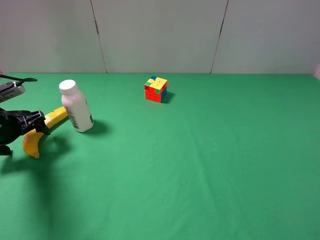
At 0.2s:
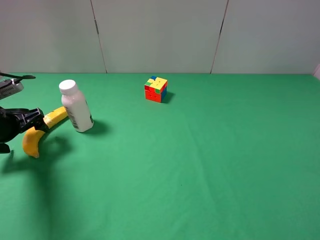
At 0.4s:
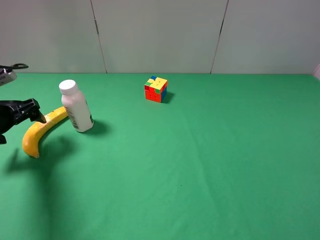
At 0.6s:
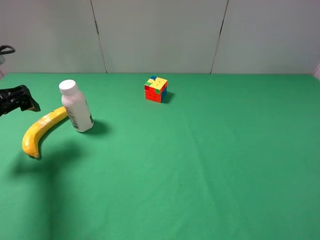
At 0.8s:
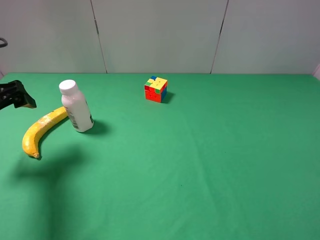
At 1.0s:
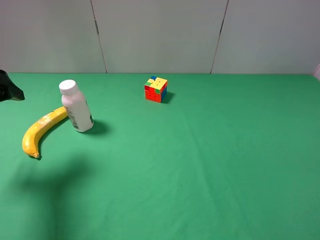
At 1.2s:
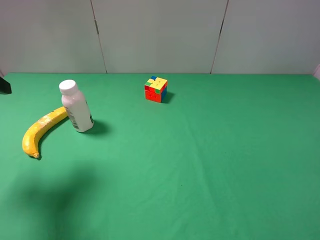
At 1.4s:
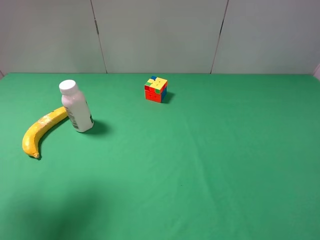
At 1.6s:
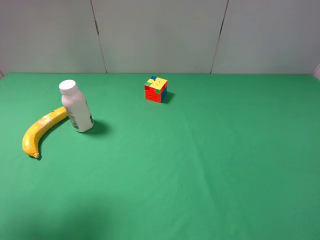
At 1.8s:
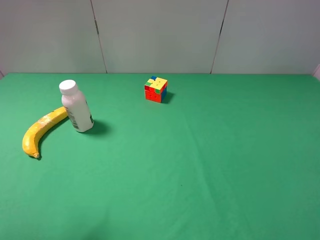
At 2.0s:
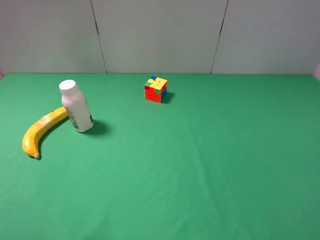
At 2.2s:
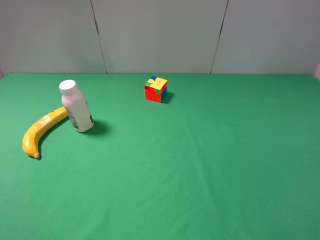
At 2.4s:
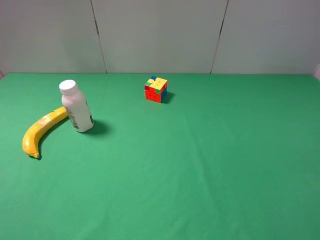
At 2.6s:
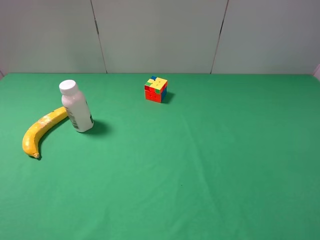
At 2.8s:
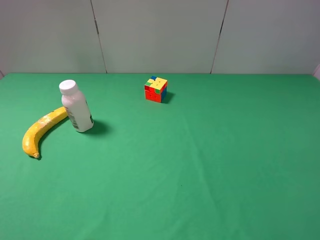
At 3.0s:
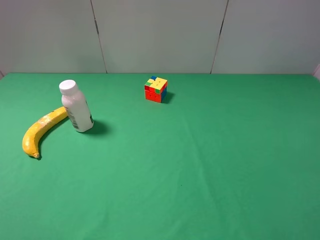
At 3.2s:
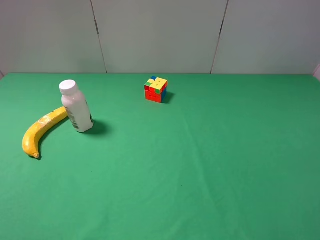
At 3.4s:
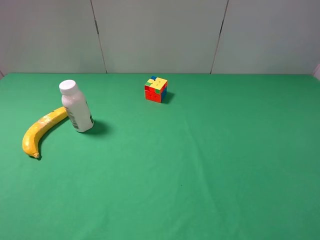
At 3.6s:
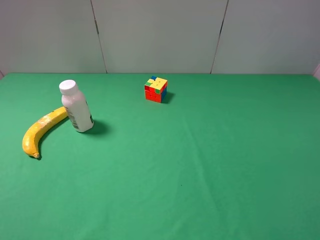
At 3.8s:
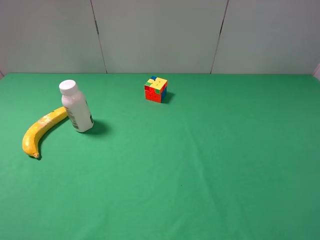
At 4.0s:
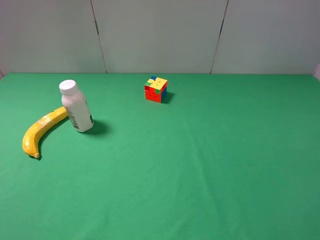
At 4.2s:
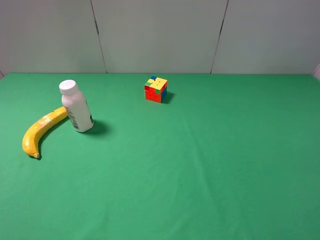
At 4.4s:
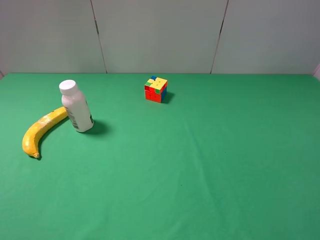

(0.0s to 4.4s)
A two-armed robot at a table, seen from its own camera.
Task of the whole recording: use the right gripper to pick up the item and transfer it from the right gripper to the left gripper.
0.0s - 1.4s: The left gripper shifts some 25 cm upward and backward.
1.4s - 3.0s: The left gripper goes some 15 cm backward.

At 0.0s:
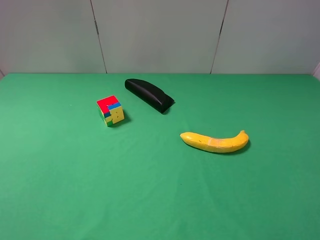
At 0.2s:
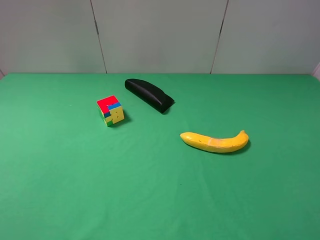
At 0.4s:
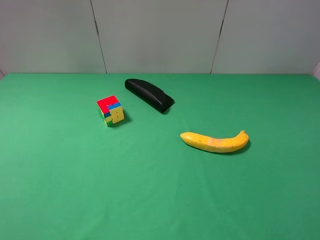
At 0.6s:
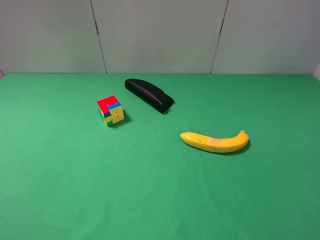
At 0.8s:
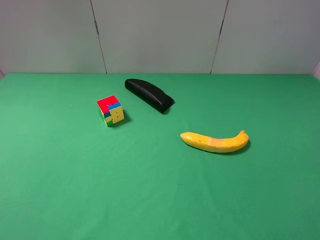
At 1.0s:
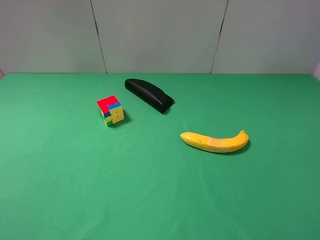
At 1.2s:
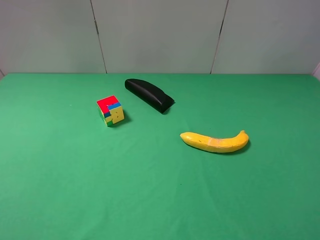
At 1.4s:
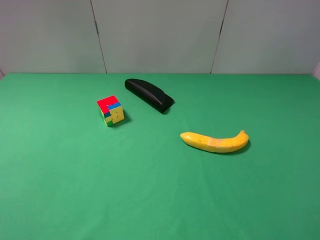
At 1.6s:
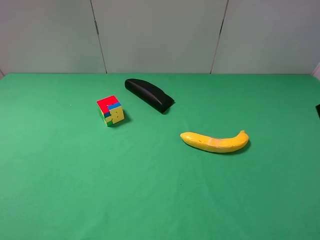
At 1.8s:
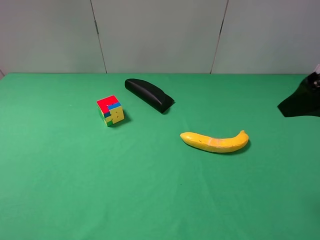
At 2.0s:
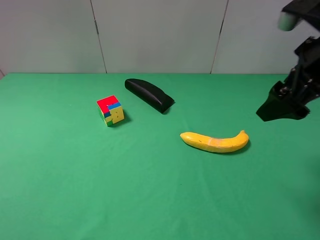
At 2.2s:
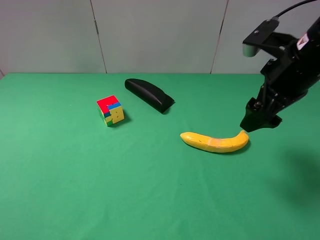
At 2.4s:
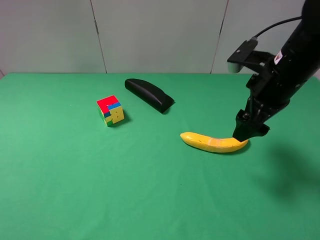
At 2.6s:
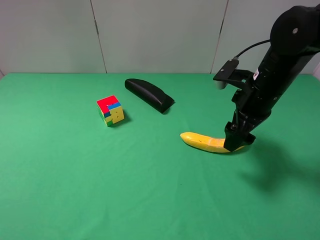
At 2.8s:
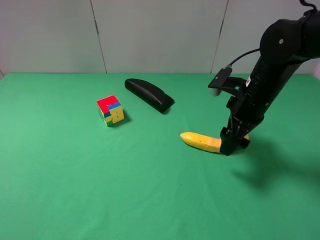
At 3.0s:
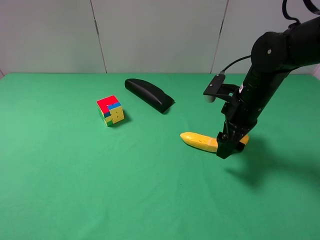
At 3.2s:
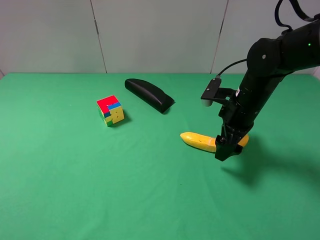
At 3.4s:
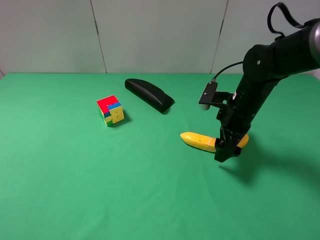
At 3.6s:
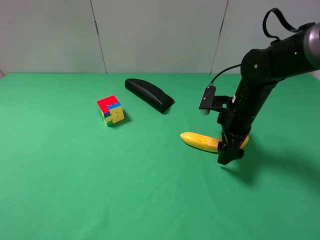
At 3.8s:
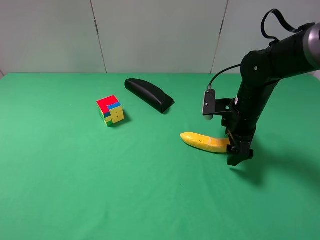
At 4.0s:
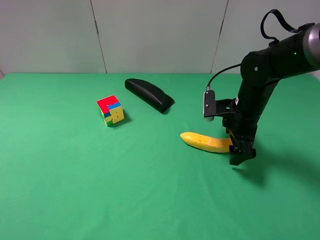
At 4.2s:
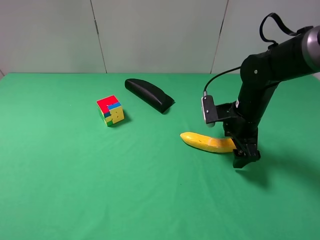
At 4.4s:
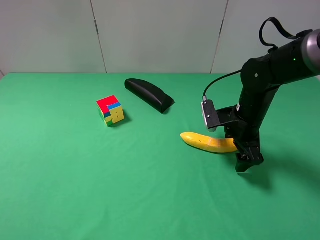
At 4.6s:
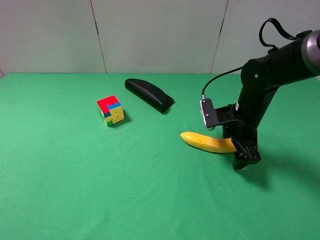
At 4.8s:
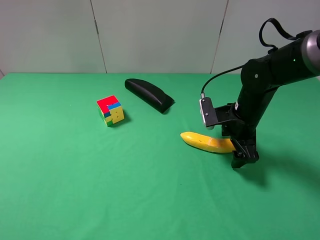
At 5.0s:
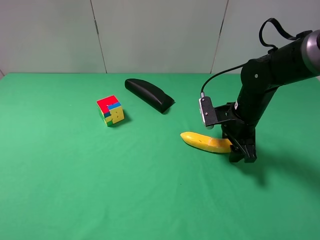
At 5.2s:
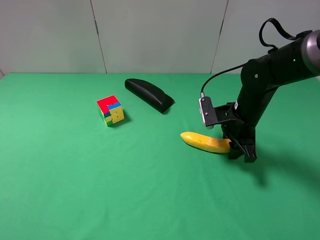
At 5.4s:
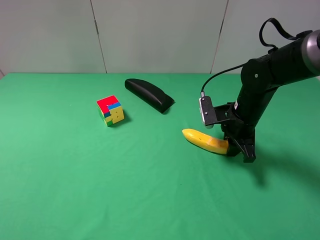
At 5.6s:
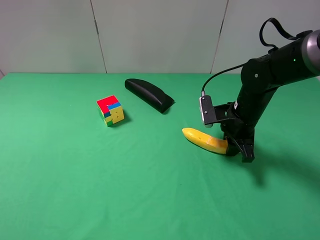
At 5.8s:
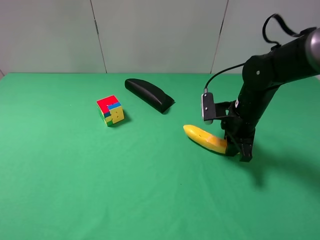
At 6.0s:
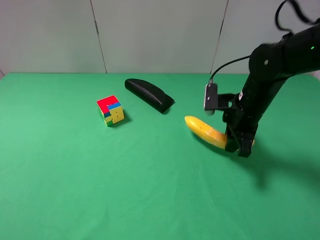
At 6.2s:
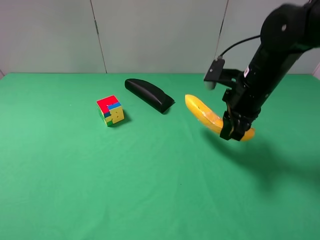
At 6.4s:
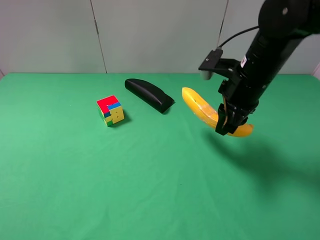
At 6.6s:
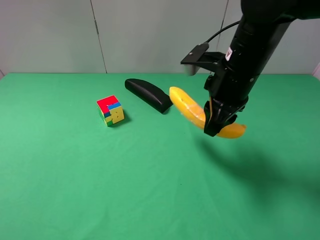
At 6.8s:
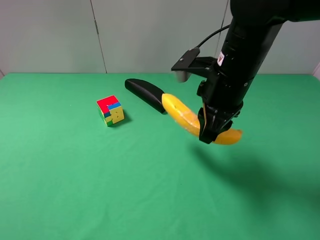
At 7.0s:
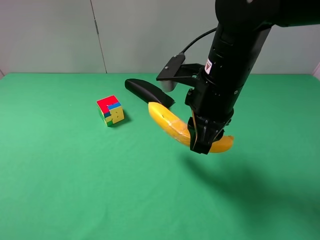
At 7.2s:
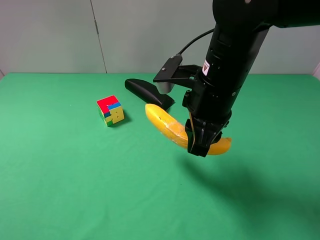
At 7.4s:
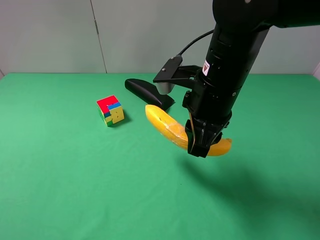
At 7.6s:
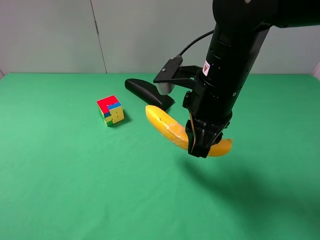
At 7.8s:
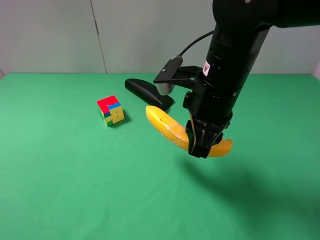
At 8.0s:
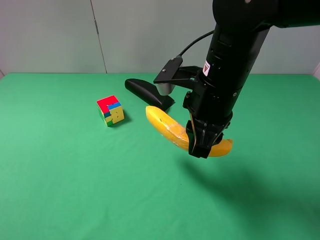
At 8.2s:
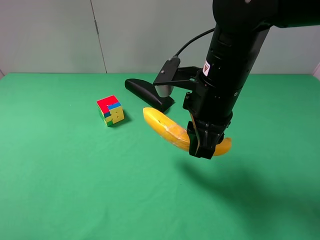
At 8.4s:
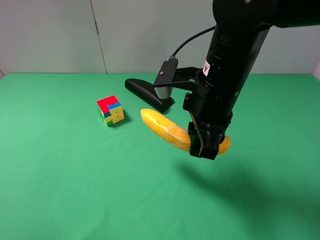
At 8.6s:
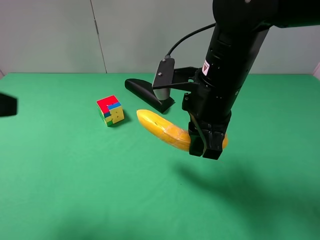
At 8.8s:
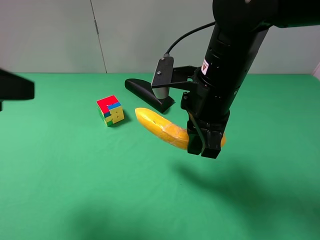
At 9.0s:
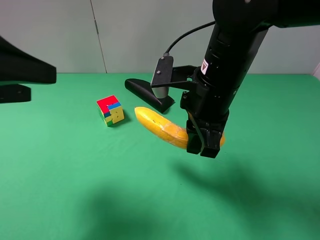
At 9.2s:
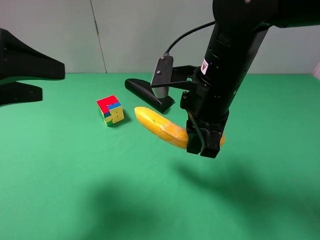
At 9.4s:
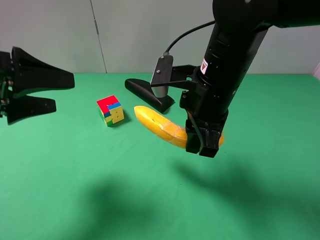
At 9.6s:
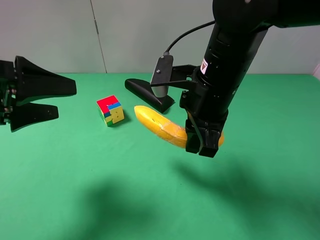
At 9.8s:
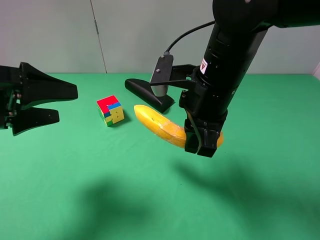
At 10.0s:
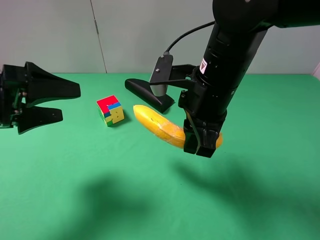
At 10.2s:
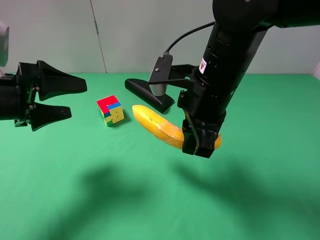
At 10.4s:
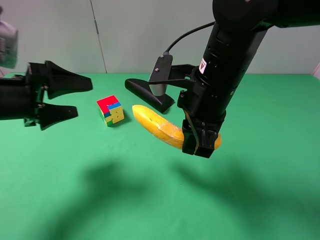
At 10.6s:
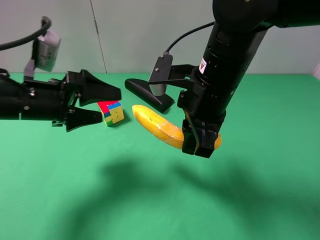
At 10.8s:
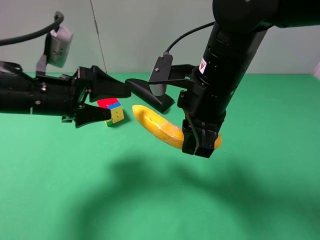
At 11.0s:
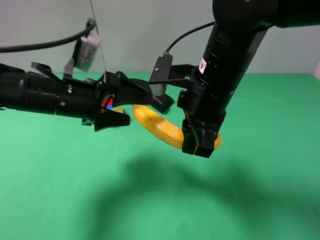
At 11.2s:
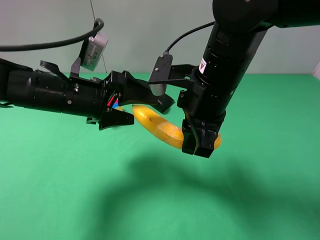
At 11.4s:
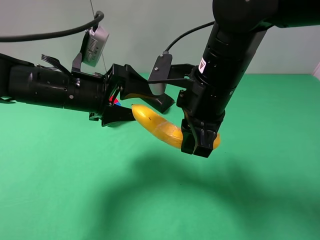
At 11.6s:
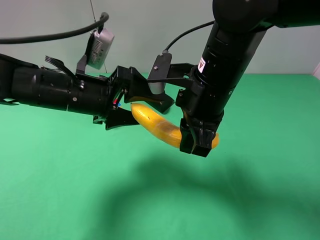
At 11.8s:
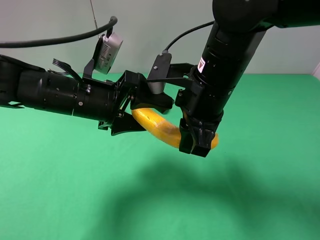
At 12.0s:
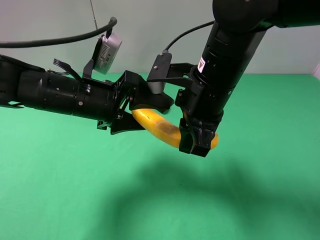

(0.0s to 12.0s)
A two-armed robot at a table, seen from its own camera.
Task of the whole recording: use the right gripper to pick up the item and transfer it from the right gripper to the left gripper.
1.6s - 3.0s: The right gripper shifts roughly 25 cm downward, forward and to the left.
4.4s - 6.0s: The right gripper closes.
6.0s - 7.6s: The right gripper is displaced to the left, upward and backward by approximately 15 cm.
7.6s - 9.0s: The left gripper heads forward, covering approximately 15 cm.
9.0s - 10.4s: The left gripper shifts roughly 10 cm downward.
10.4s - 12.0s: The left gripper is displaced to the right by approximately 10 cm.

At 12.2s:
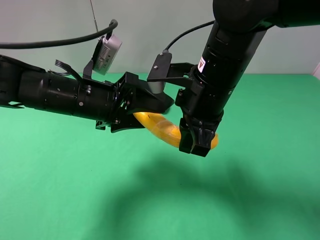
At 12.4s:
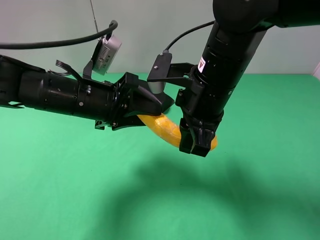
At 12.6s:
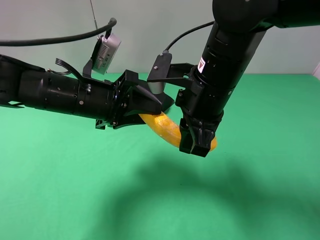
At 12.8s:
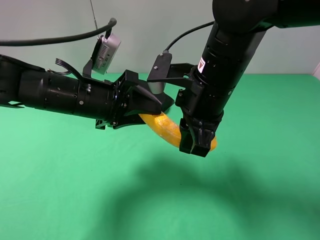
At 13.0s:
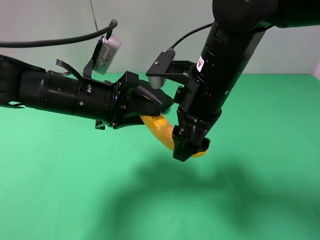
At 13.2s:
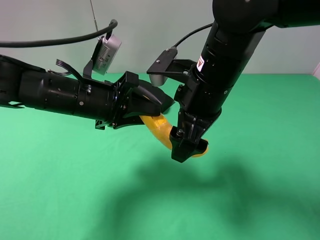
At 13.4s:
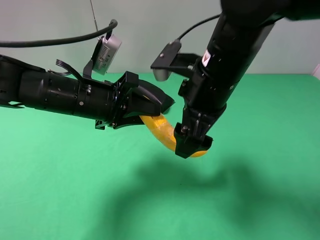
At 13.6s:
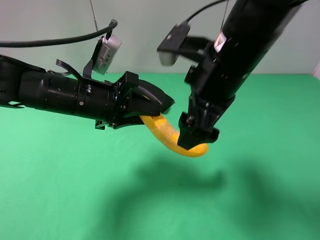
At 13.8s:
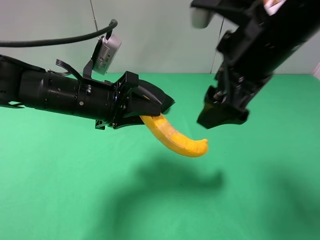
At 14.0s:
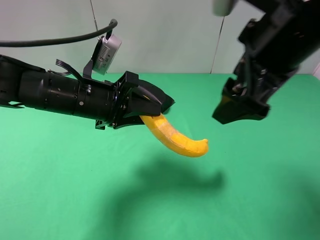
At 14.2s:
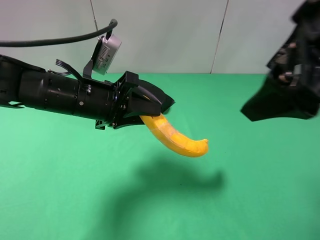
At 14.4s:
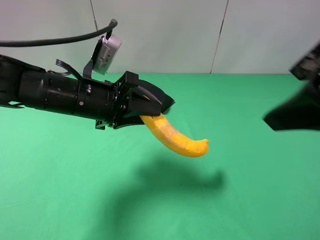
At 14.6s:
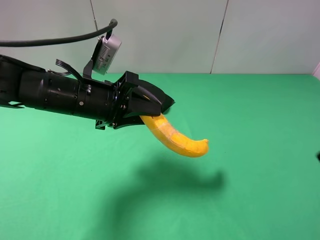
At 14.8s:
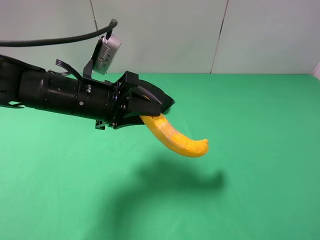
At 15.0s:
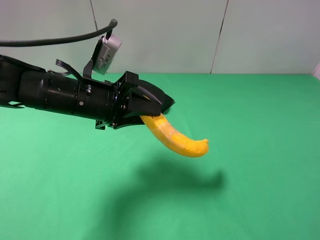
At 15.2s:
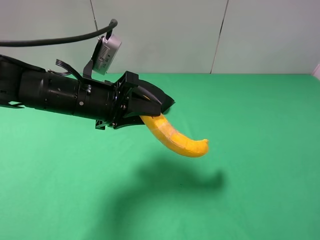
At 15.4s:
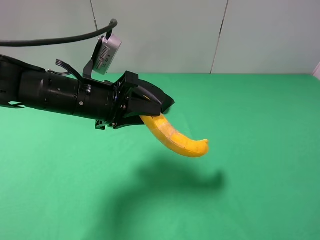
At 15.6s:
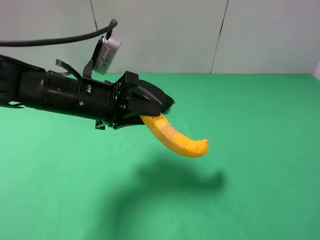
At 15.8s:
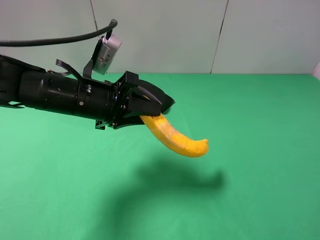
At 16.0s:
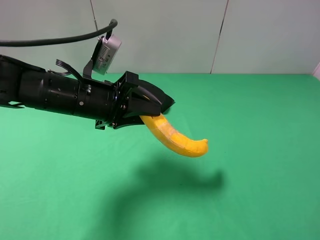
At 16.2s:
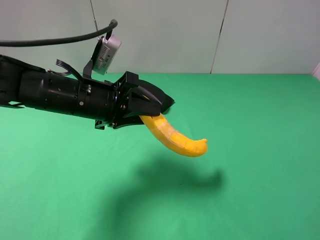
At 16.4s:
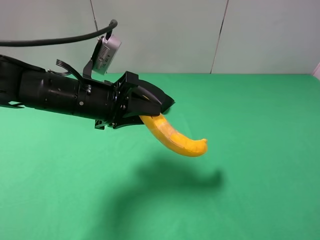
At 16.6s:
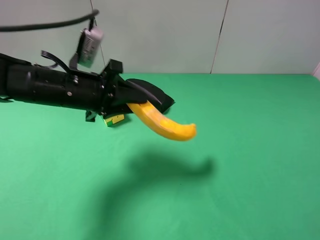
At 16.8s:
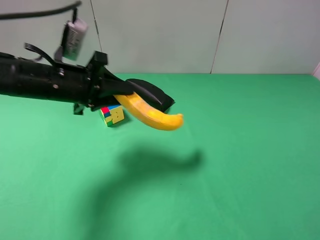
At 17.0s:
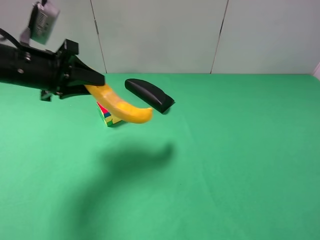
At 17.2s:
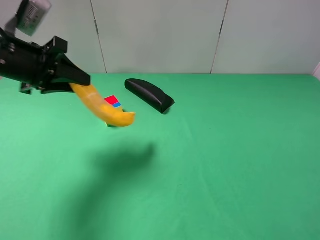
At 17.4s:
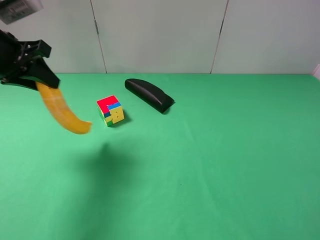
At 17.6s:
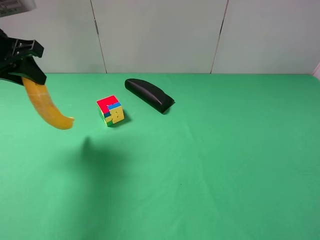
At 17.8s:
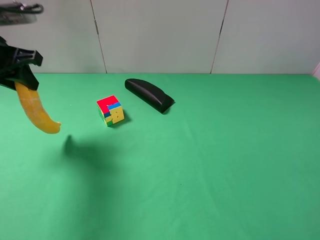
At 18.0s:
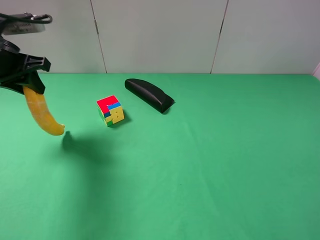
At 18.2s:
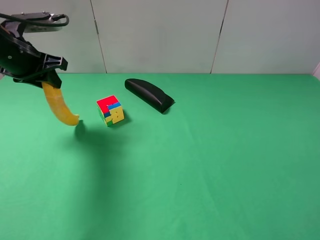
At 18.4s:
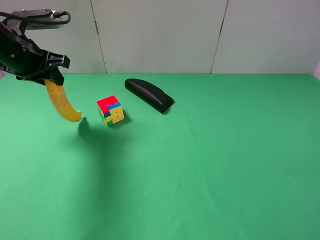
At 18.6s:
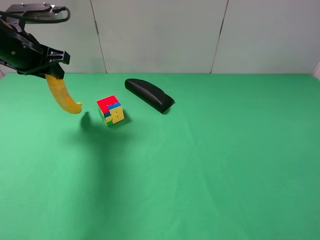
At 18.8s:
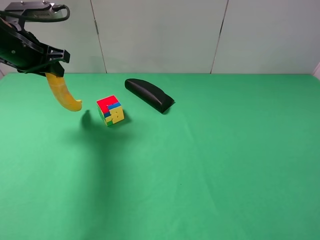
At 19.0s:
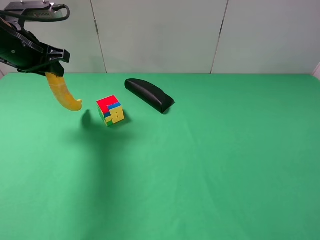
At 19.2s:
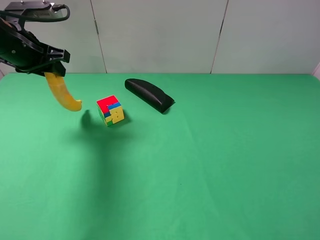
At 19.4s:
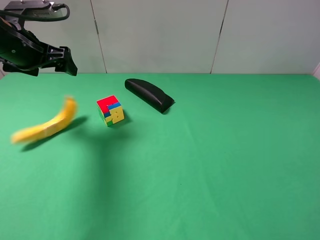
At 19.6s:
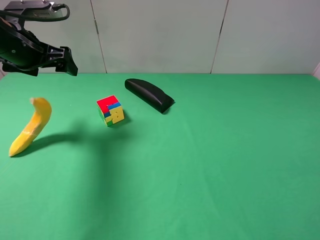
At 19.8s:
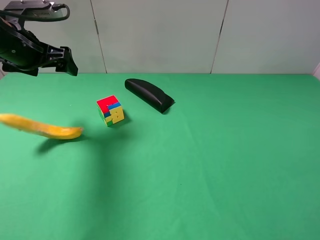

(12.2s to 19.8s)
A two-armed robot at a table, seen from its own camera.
Task of the whole recording: use the right gripper to pick up the item and transfer it from the right gripper to the left gripper.
Step, 13.2s - 19.6s: The left gripper places banana on the left side of the table.
12.2s - 13.8s: The right gripper travels upward by about 10 cm, and opens, while the left gripper closes.
13.8s - 15.2s: The right gripper heads backward and to the right, covering roughly 25 cm.
15.2s - 16.8s: The left gripper goes roughly 5 cm to the left.
16.8s - 18.2s: The left gripper moves to the left and forward, about 10 cm.
18.2s - 19.8s: The left gripper opens its fingers.
